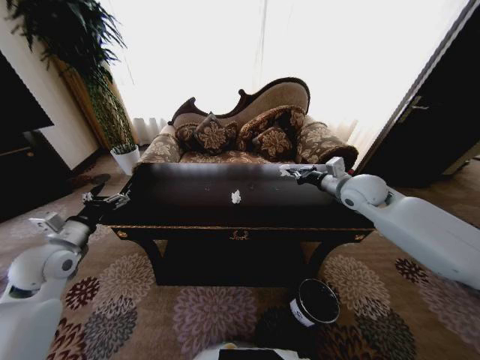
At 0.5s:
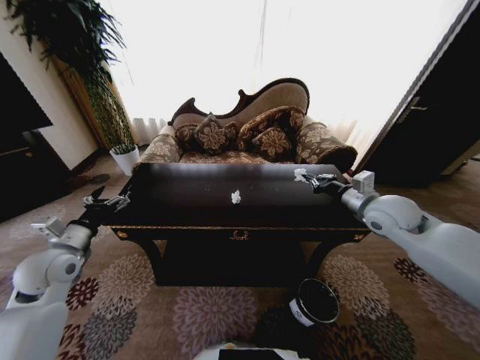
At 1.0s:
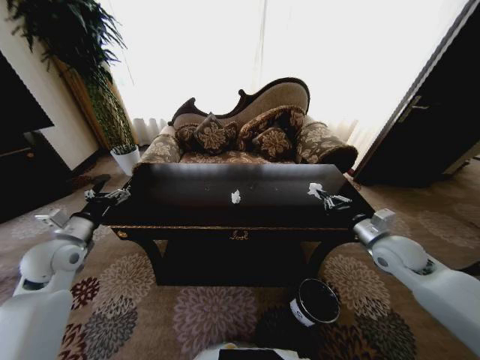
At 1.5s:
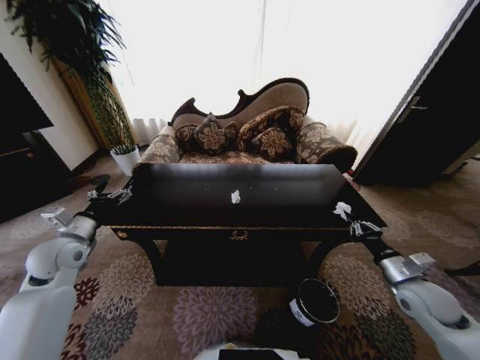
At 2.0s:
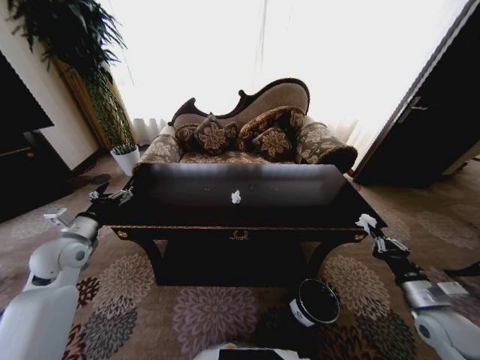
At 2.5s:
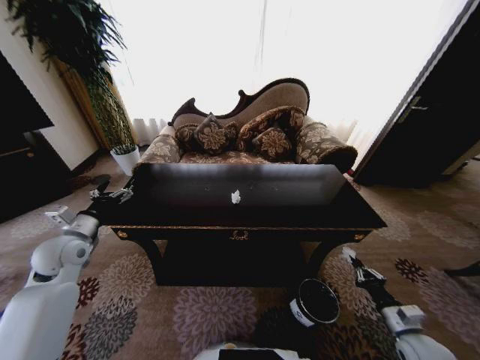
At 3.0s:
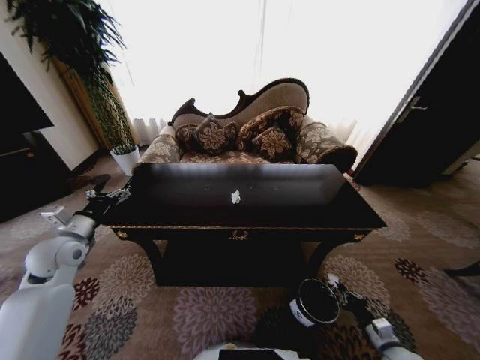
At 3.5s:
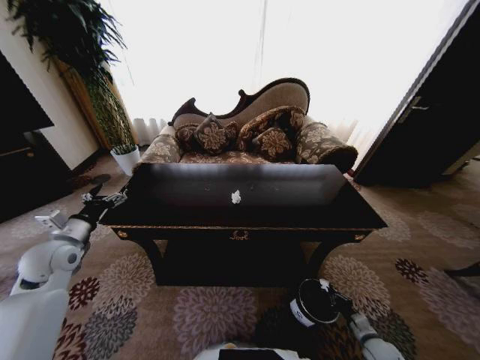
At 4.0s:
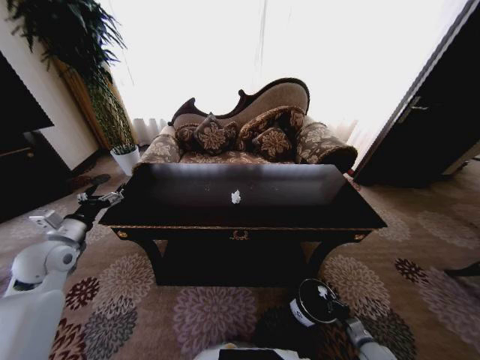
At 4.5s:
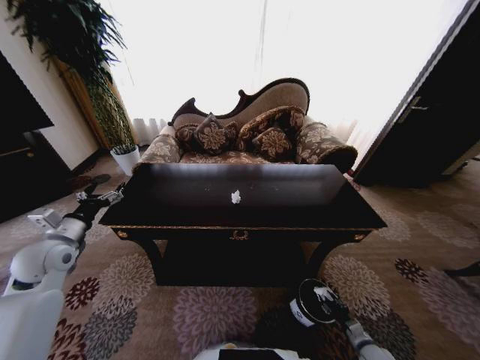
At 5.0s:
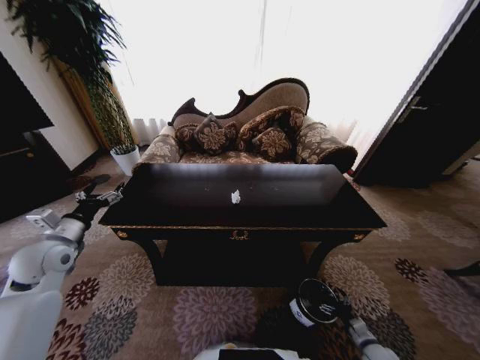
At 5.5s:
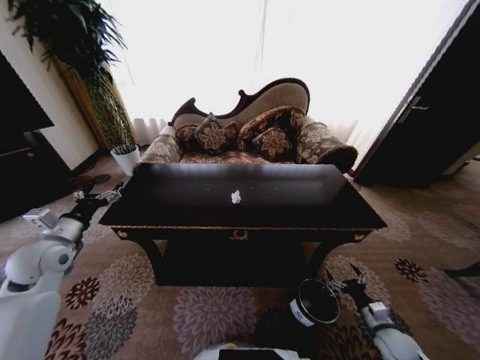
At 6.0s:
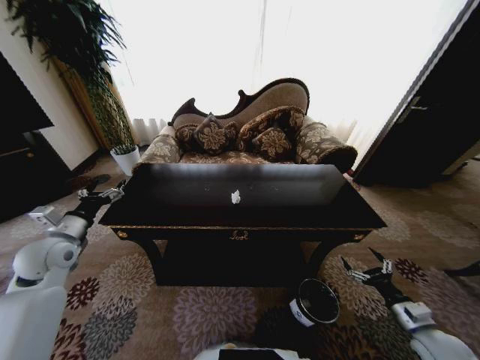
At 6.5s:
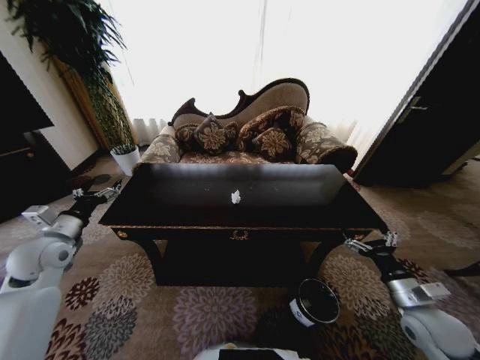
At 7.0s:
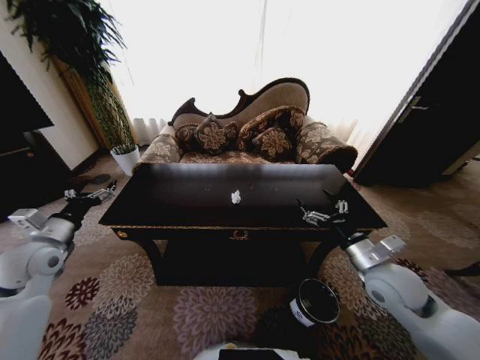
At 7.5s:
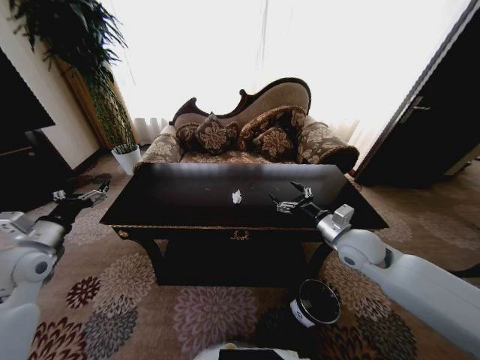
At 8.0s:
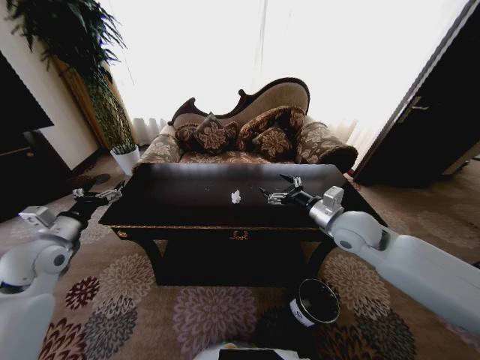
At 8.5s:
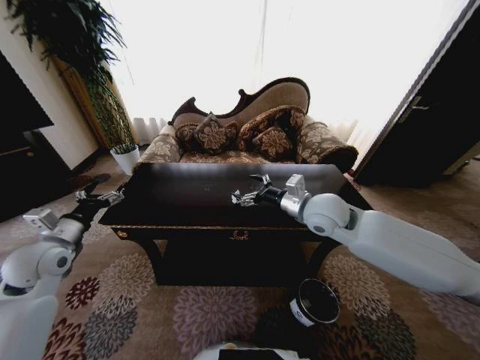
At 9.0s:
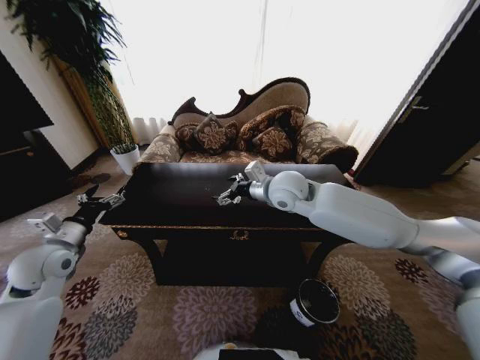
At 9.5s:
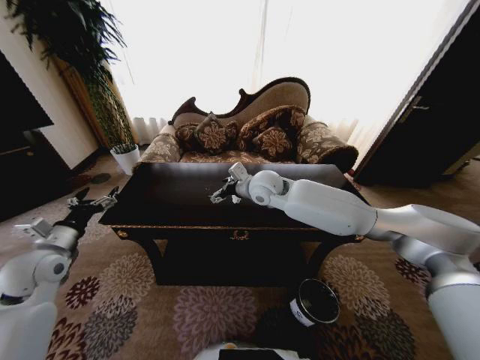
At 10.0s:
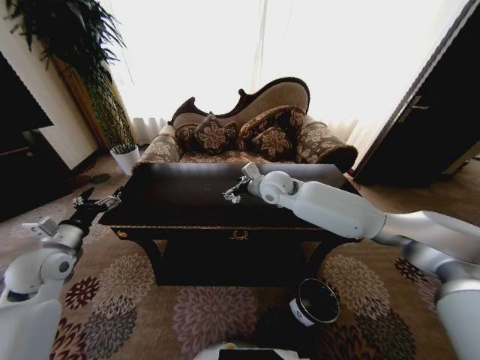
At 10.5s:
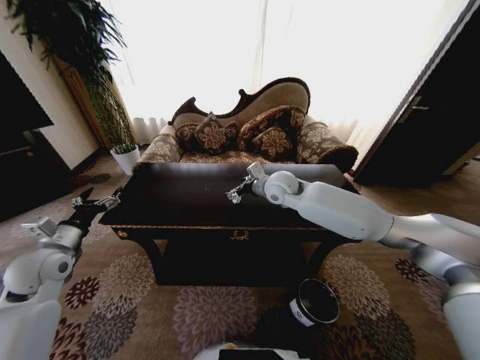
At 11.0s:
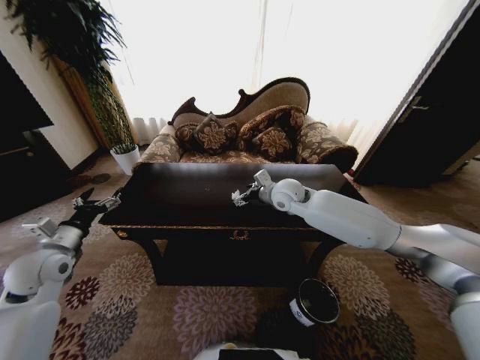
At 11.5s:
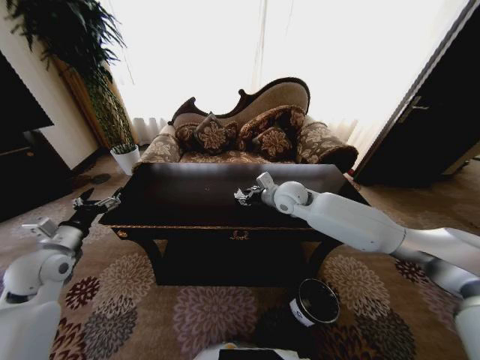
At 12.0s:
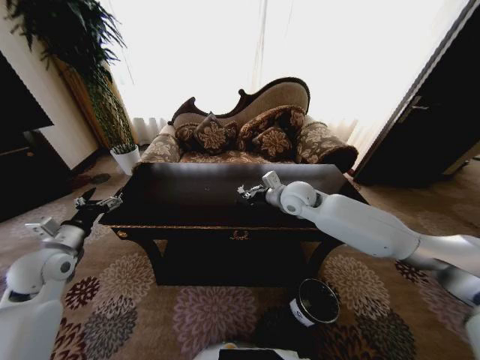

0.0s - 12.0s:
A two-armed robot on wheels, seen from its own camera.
Task of the whole recording: Move to the front of the table and place the trash on the table into the trash bin.
0.0s - 2.0s: The right gripper goes approximately 35 cm backward, downward and to the right.
2.0s - 4.0s: The right gripper is displaced downward by about 30 cm.
4.0s - 6.0s: The right gripper shifts some 20 cm upward, and opens up.
6.0s - 8.0s: The right gripper moves upward, to the left and forward, roughly 40 cm.
8.0s - 10.0s: The right gripper travels to the left and forward by roughly 20 cm.
10.0s - 12.0s: The right gripper heads to the right, covering roughly 5 cm, and closes its fingers.

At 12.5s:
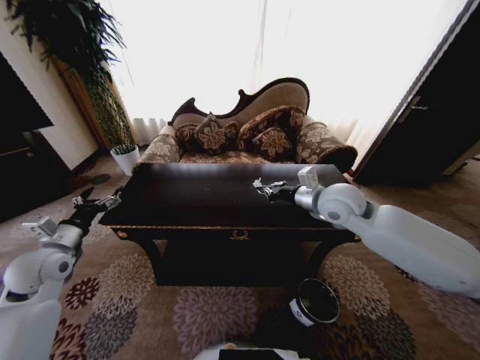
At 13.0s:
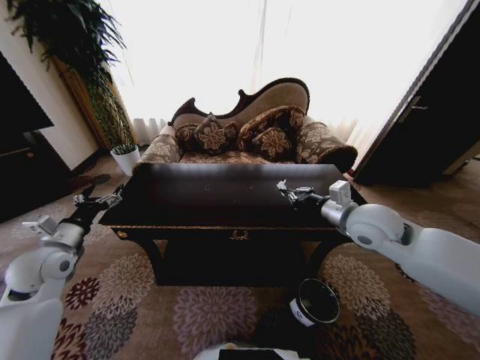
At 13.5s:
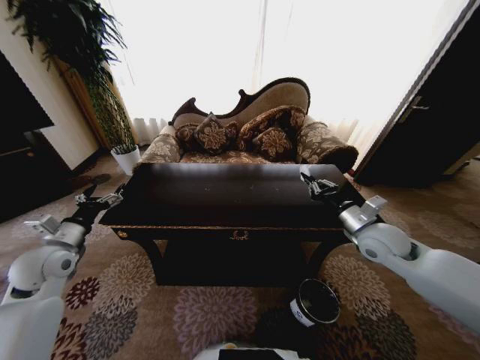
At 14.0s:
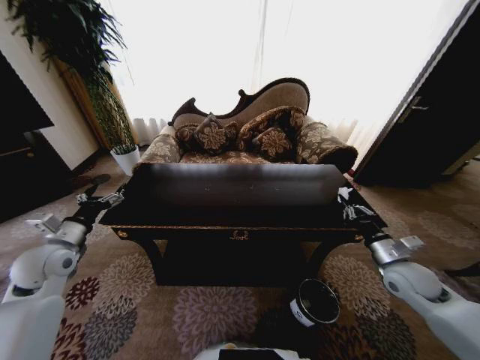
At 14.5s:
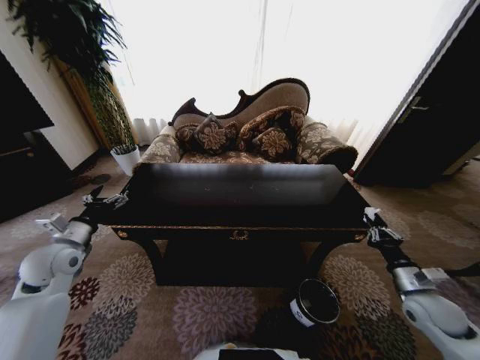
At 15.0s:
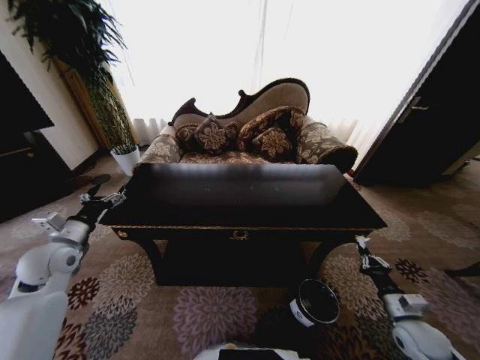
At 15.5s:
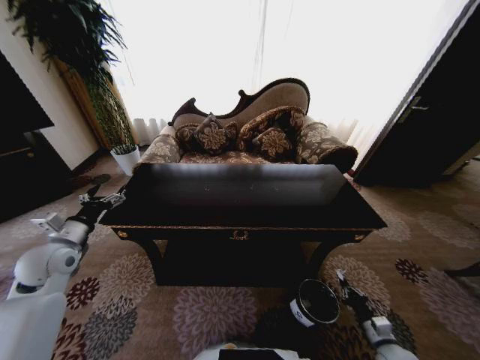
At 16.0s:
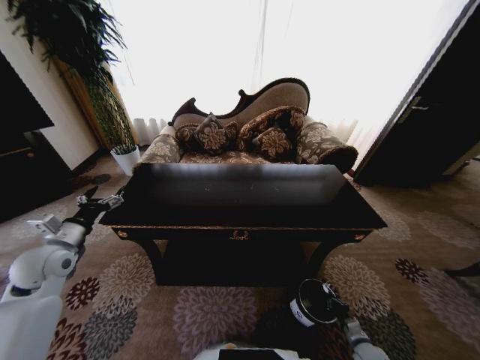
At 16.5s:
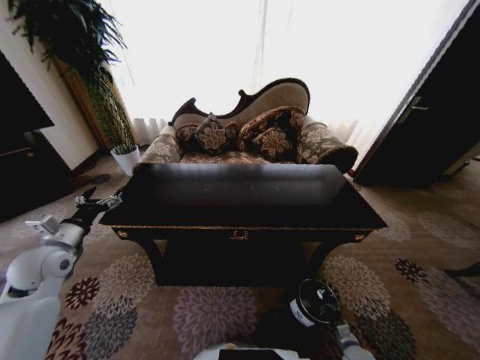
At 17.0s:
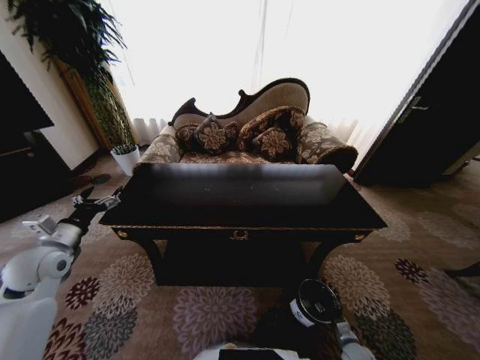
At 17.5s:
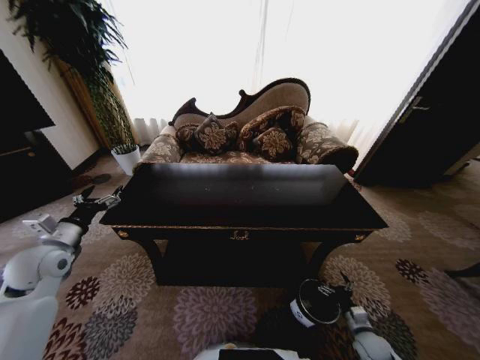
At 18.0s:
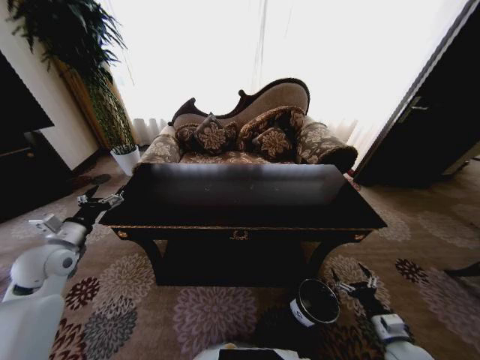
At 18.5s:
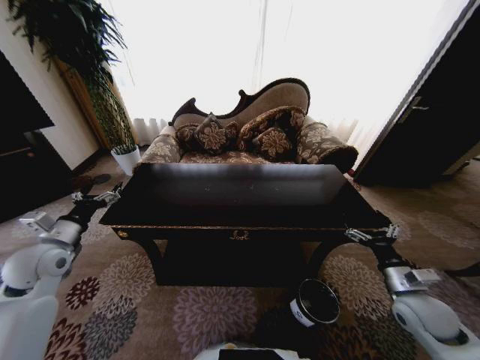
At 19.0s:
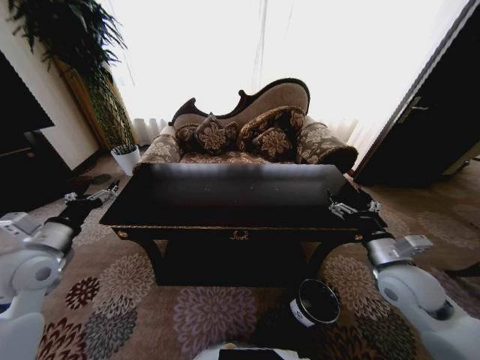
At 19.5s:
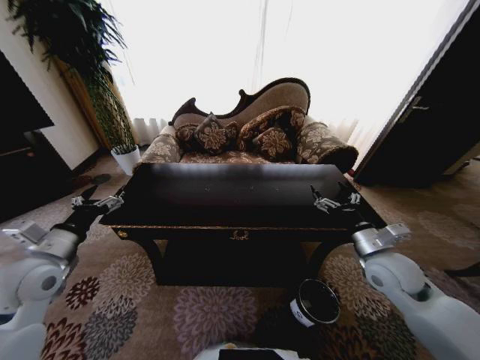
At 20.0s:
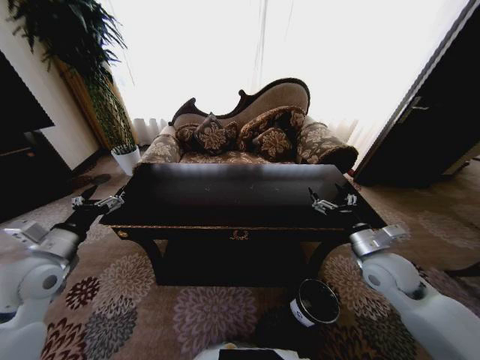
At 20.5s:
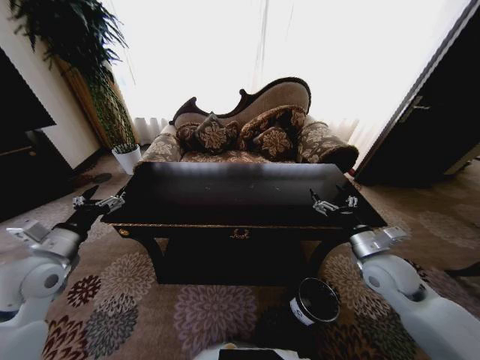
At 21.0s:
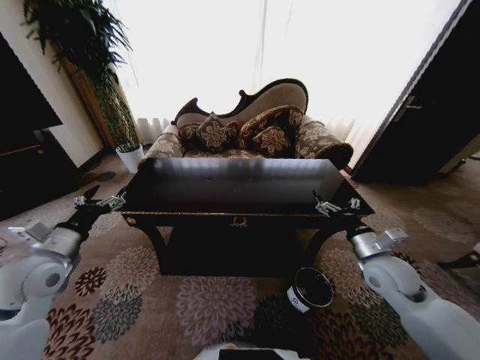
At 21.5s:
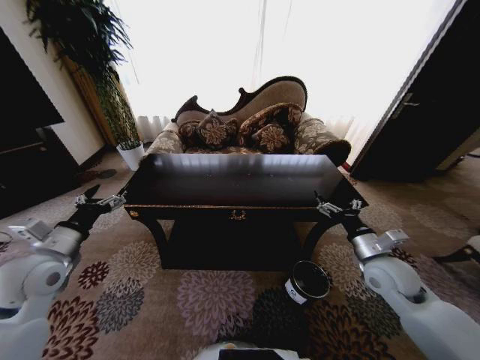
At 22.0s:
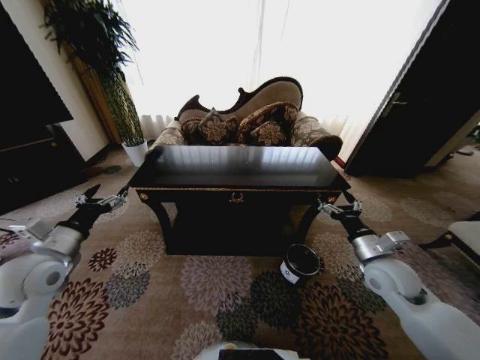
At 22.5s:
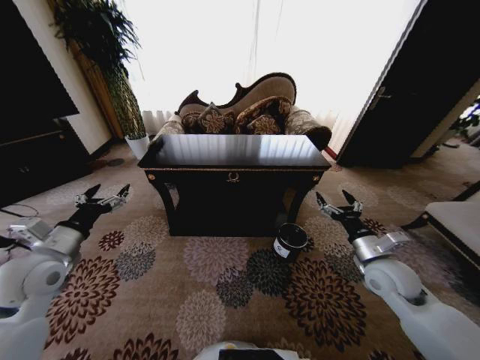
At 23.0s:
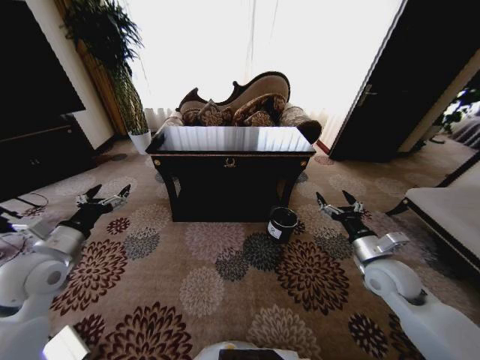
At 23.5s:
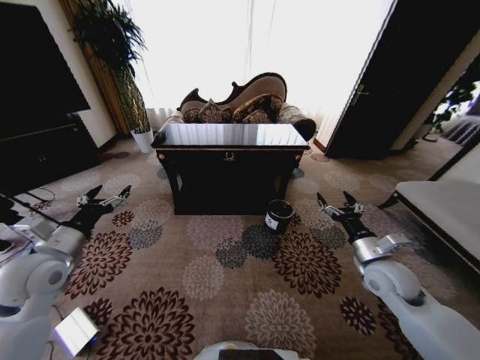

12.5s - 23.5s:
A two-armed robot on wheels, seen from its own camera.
Task of the whole recording: Move to the front of the table and place the trash on the table into the trash bin.
12.5s - 14.5s: The right gripper travels to the right, downward and backward by some 35 cm.
14.5s - 16.0s: The right gripper travels downward by some 30 cm.
16.0s - 18.0s: The right gripper travels upward by about 15 cm, and opens up.
18.0s - 20.0s: The left gripper moves backward, approximately 5 cm. Meanwhile the right gripper moves upward, forward and to the left, about 30 cm.

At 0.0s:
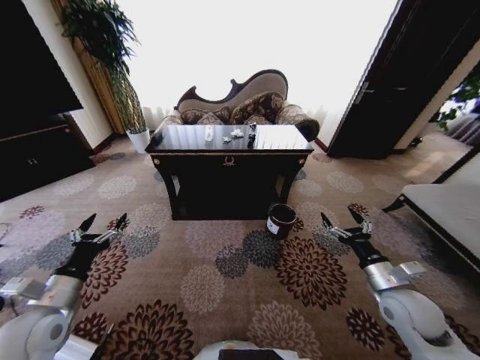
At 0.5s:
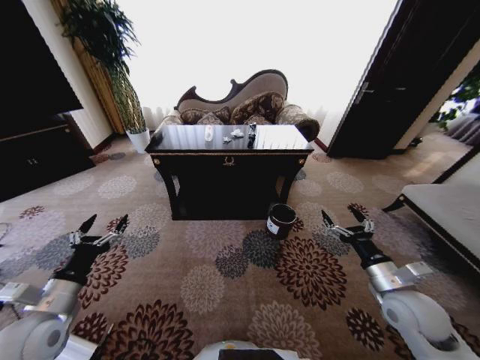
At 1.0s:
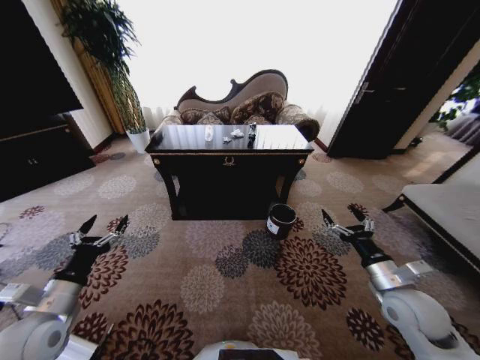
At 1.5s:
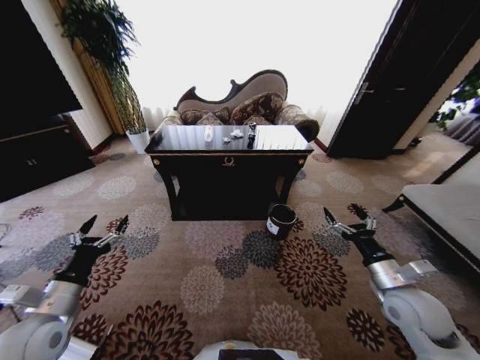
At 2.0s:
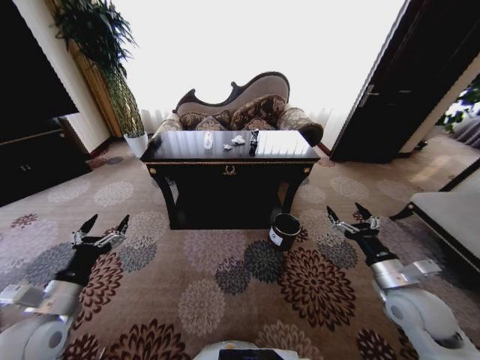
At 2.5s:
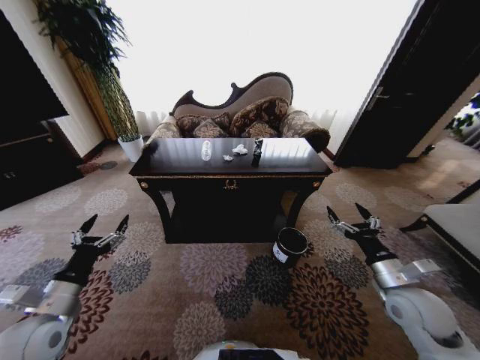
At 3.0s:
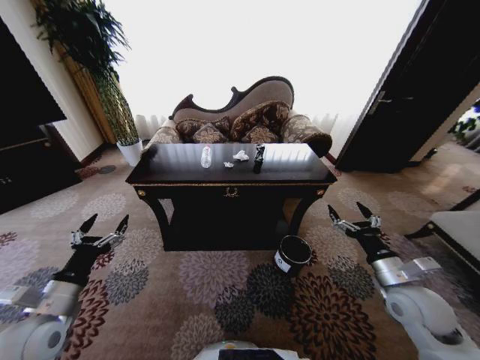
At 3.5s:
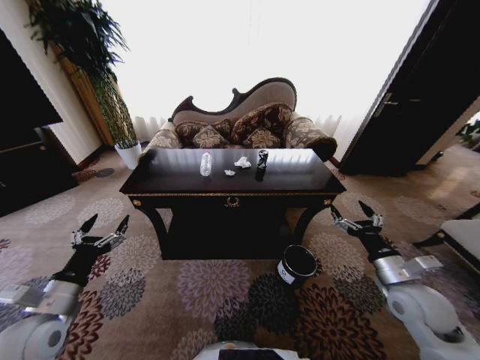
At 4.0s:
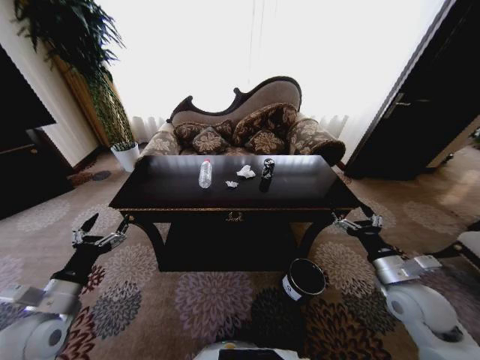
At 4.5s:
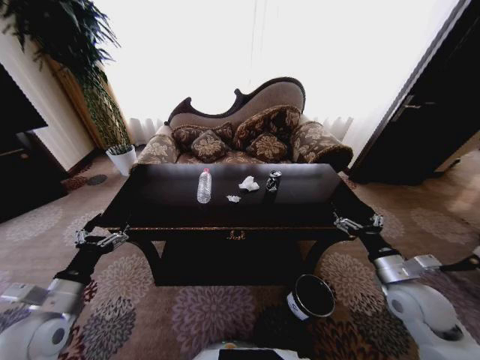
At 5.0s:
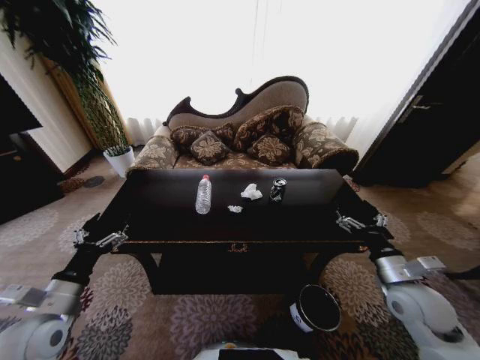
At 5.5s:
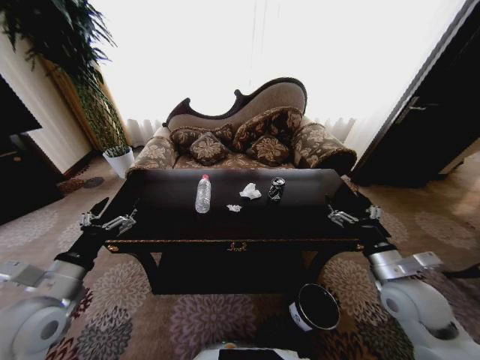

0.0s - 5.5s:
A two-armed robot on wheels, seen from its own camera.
Task of the whole recording: Move to the front of the table and place the trash on the table into the trash bin.
3.5s - 5.5s: The left gripper shifts roughly 5 cm upward.
